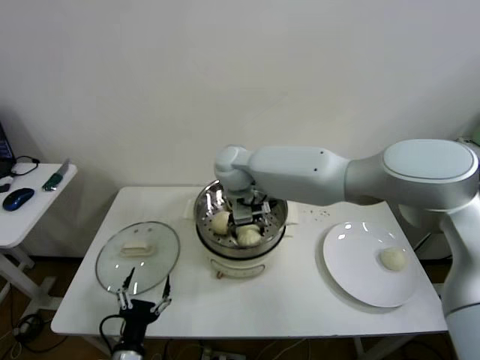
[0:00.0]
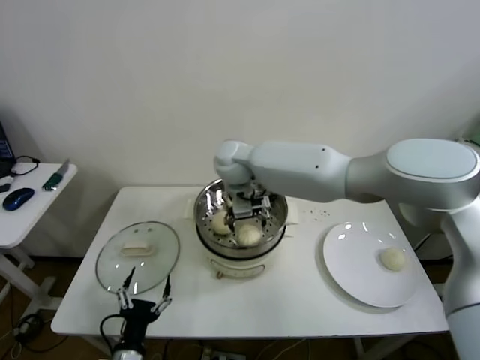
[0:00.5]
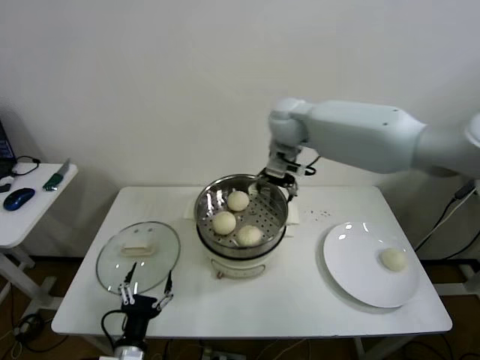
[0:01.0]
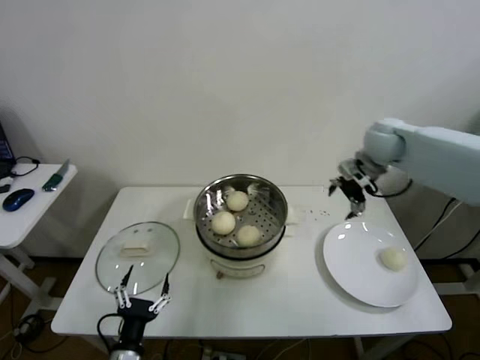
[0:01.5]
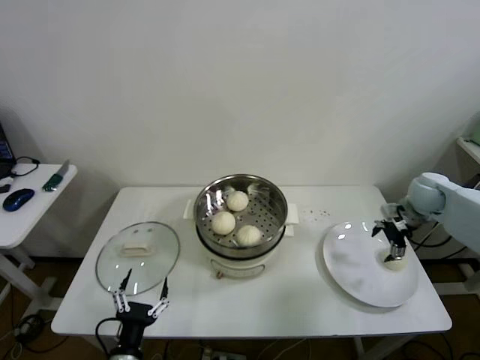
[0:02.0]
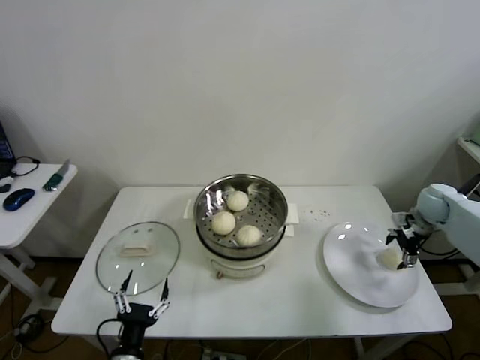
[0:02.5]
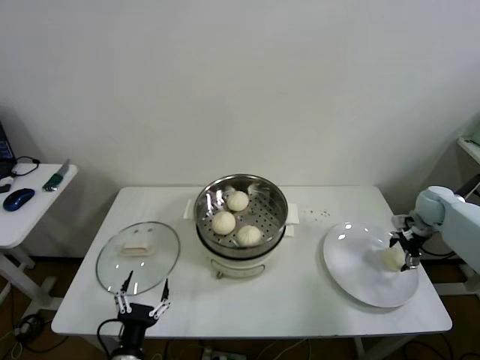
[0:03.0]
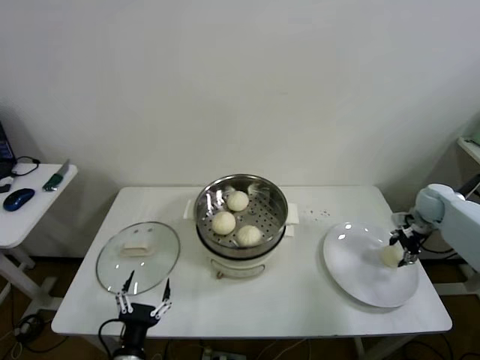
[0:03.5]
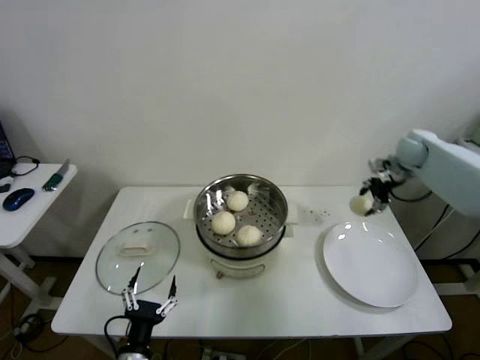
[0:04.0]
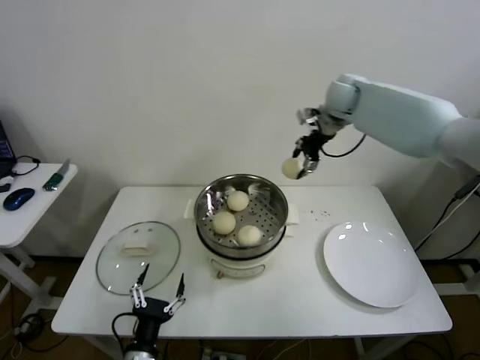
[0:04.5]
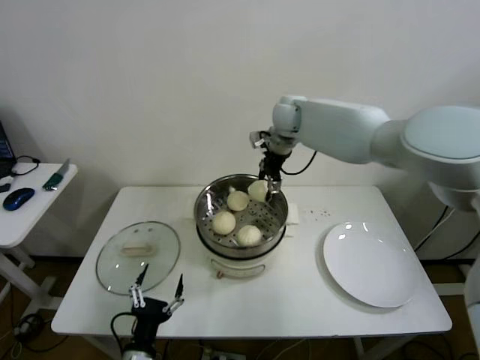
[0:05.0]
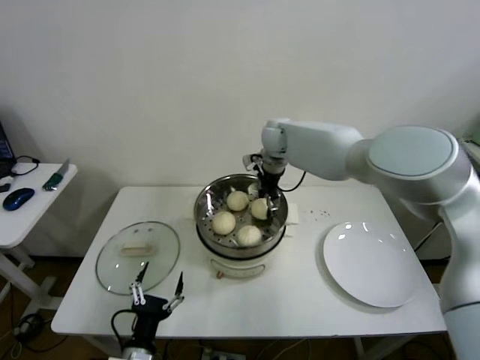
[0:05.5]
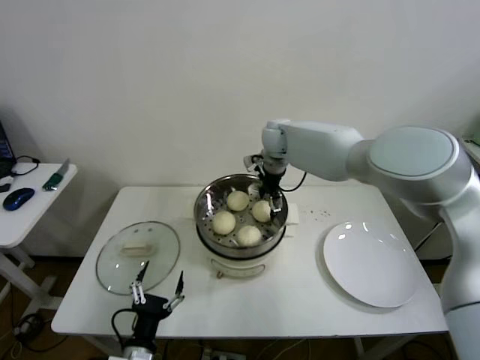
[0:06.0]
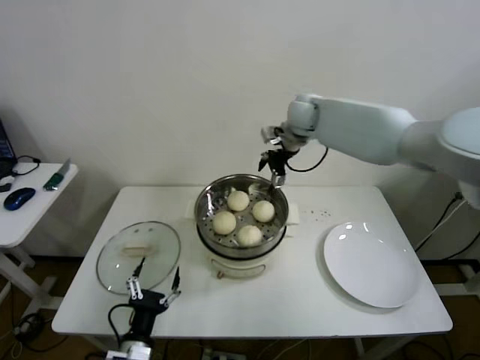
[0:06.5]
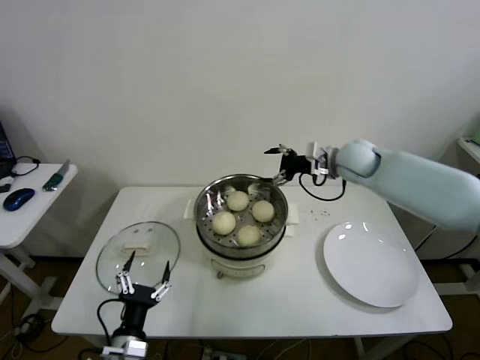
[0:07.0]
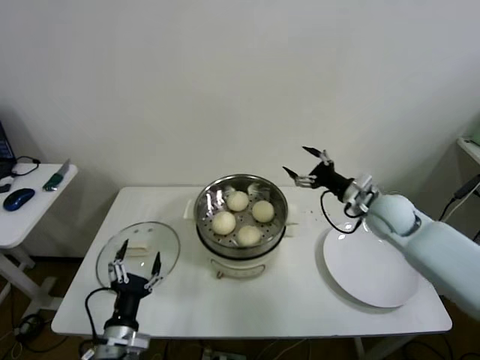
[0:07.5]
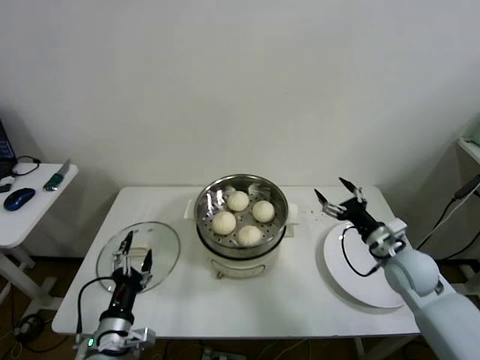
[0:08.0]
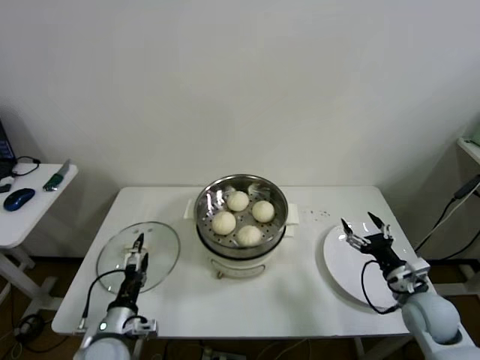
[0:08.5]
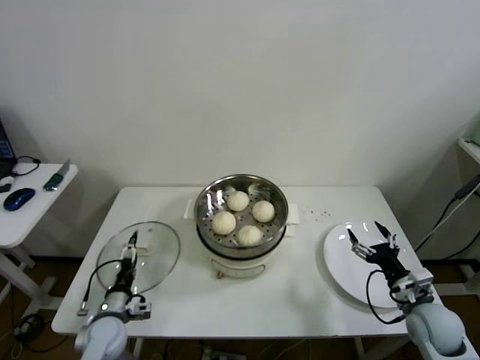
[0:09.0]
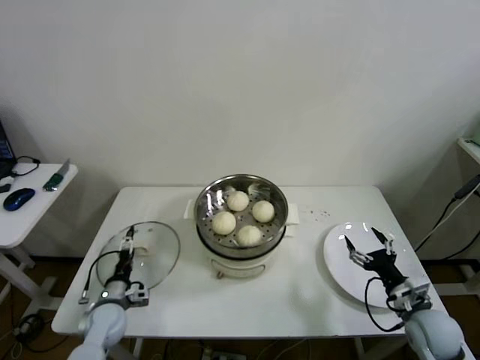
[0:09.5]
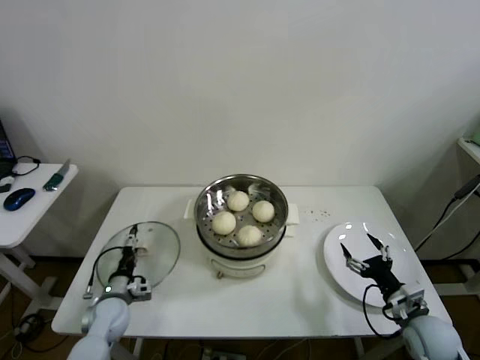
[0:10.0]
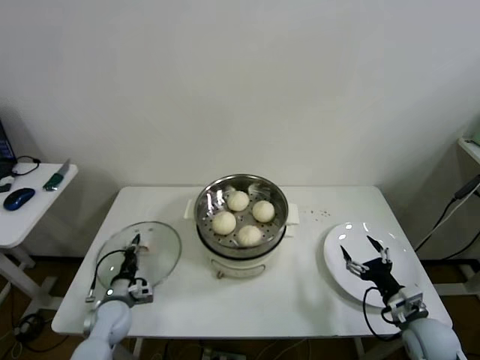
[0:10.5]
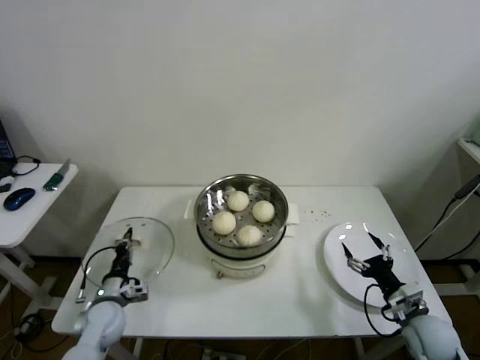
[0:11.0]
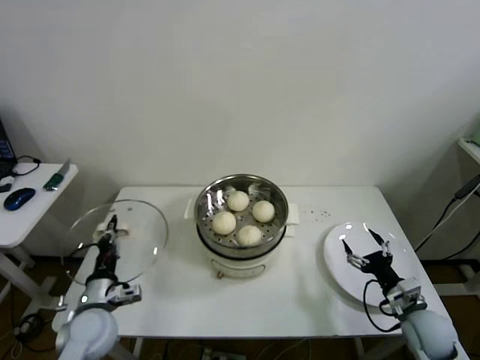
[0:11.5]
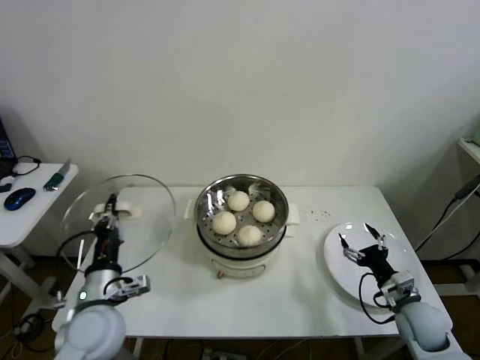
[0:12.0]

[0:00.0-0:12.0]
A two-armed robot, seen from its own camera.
Step, 0:00.5 to 0:03.0: Grasp the baozi in the plate with right gripper.
Step, 0:03.5 to 0:05.5: Place the baozi on the steamer with right gripper.
Step, 0:06.0 to 0:10.5: Grasp the pot lid with left gripper.
0:00.0 to 0:02.0: The right gripper goes about 50 cm to the right, and opens its fingers.
0:02.0 to 0:04.0: The right gripper heads forward and upward, covering approximately 10 cm, and closes its fingers.
0:04.0 to 0:06.0: The right gripper moves to the left, approximately 35 cm, and opens.
0:06.0 to 0:08.0: The left gripper moves about 5 cm. Meanwhile the right gripper goes roughly 40 cm backward, to the right and downward.
0:08.0 to 0:10.0: The left gripper travels forward, downward and to the left by approximately 20 cm, while the right gripper goes some 15 cm backward and downward.
0:10.0 to 0:12.0: The left gripper is displaced upward and backward by some 20 cm, and closes up.

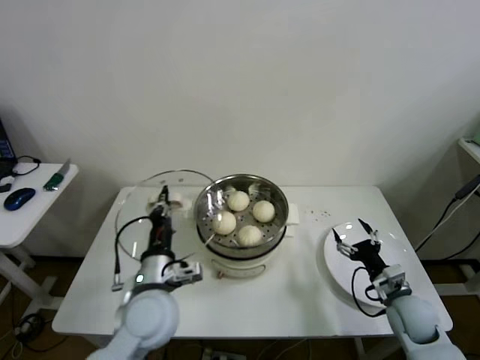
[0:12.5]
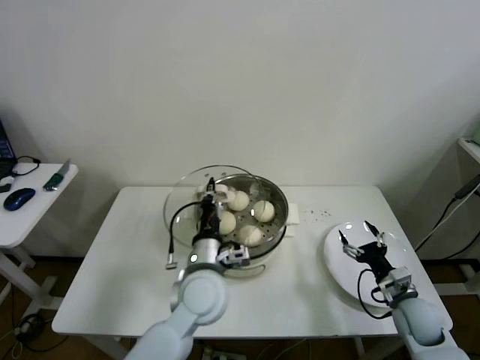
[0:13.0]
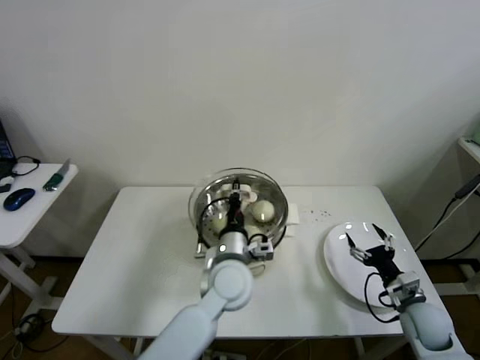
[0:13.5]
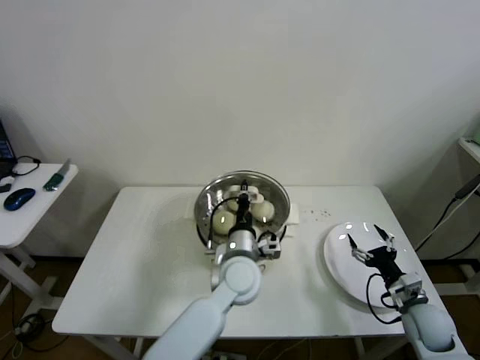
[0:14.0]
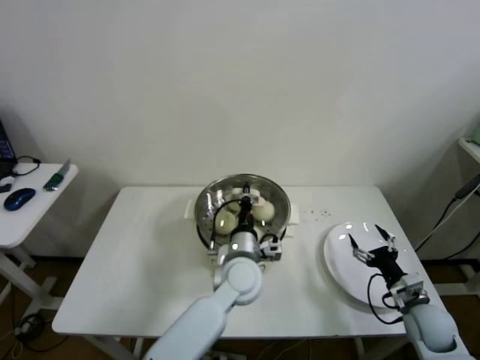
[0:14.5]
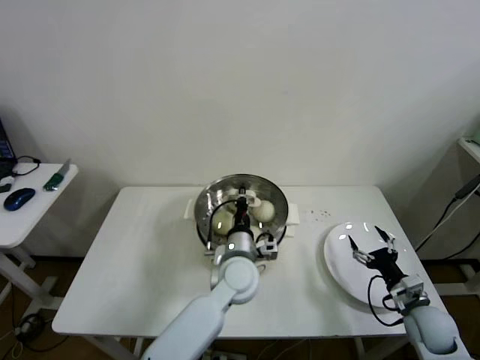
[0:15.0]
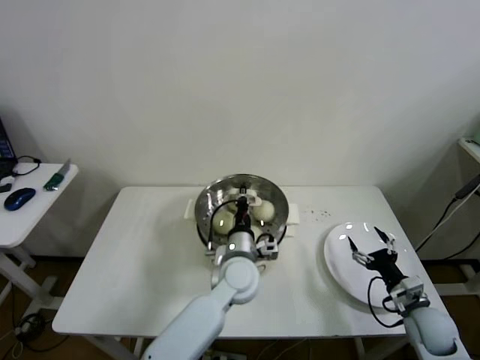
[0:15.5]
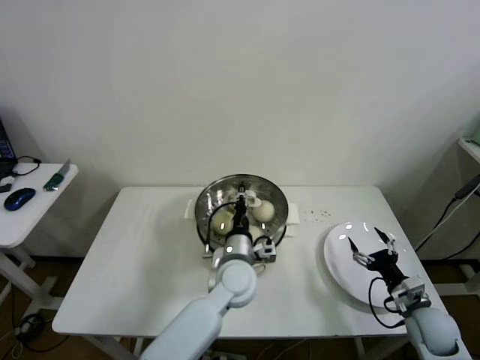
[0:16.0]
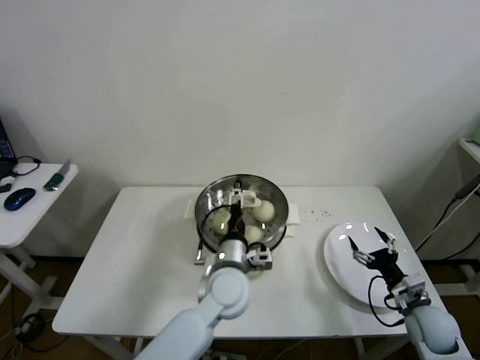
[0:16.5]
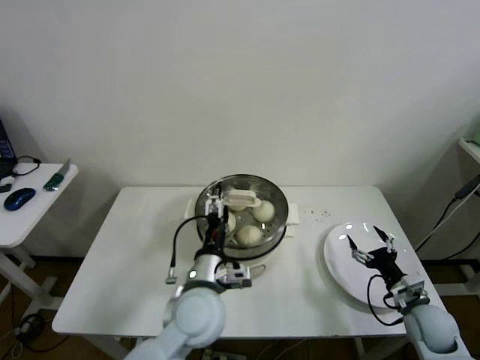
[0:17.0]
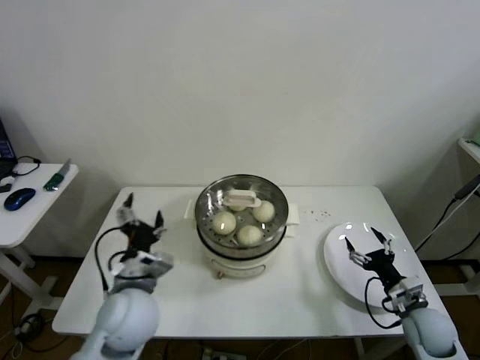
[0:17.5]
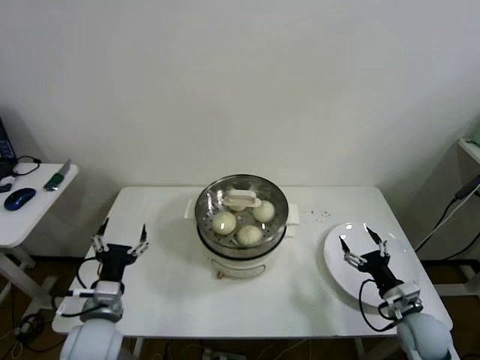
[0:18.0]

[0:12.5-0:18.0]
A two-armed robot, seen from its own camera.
Step, 0:12.5 to 0:15.5: Place the pot lid on the steamer with left gripper.
0:12.5 to 0:14.5: The left gripper travels to the right and forward by some 20 cm.
0:14.5 to 0:16.0: The grippers move only a little.
0:16.0 to 0:18.0: The left gripper goes some 30 cm to the left and backward, and opens.
